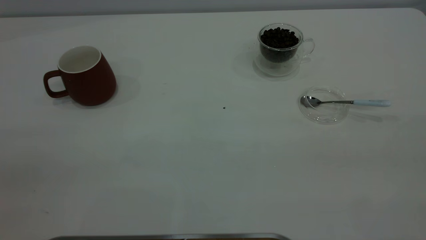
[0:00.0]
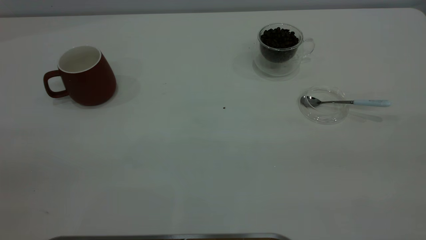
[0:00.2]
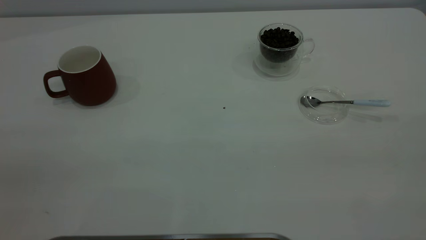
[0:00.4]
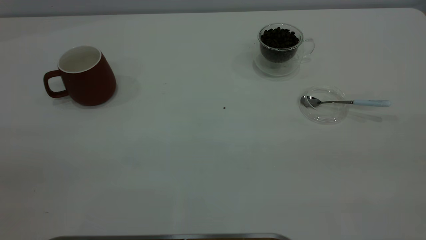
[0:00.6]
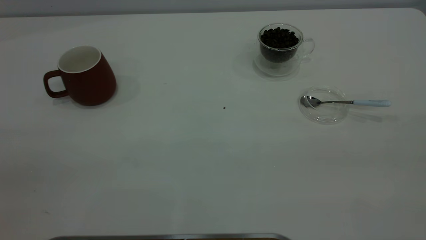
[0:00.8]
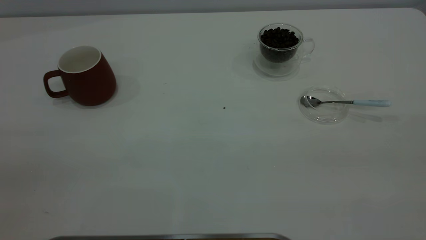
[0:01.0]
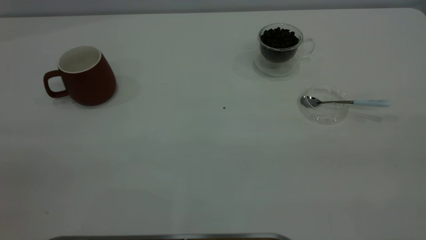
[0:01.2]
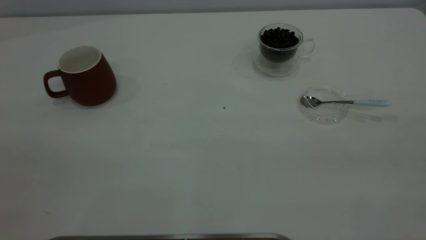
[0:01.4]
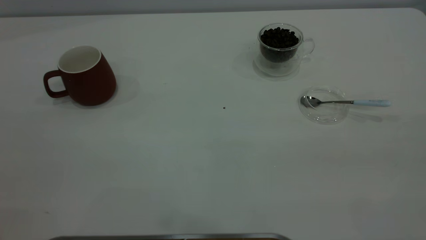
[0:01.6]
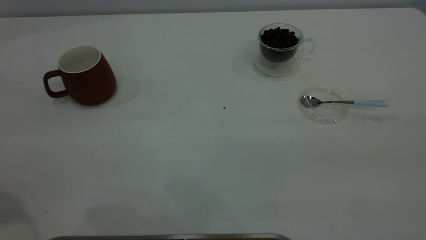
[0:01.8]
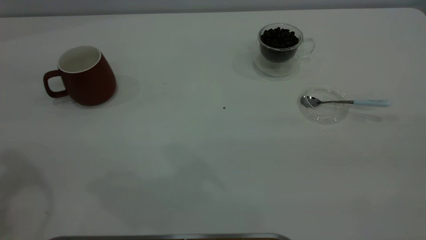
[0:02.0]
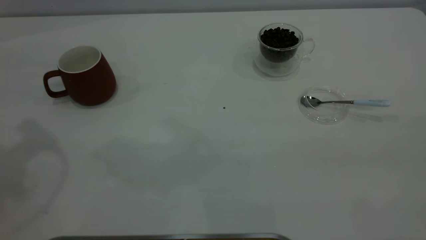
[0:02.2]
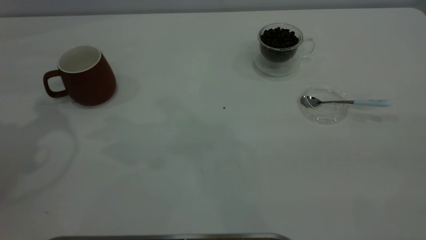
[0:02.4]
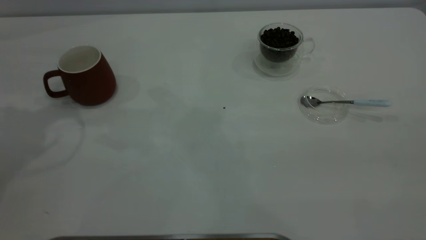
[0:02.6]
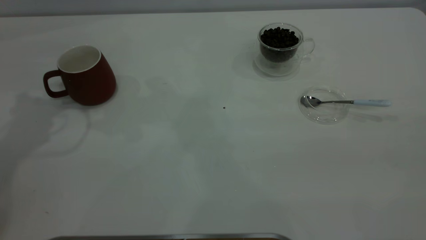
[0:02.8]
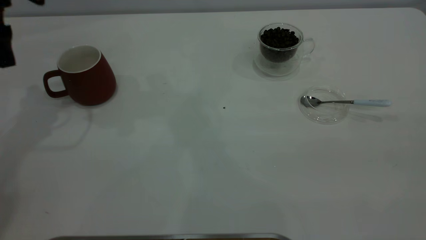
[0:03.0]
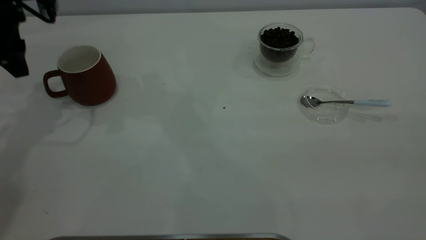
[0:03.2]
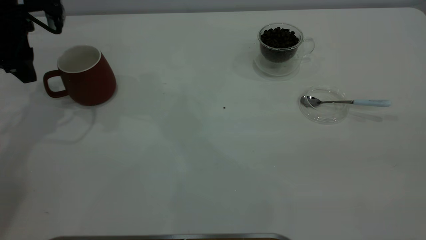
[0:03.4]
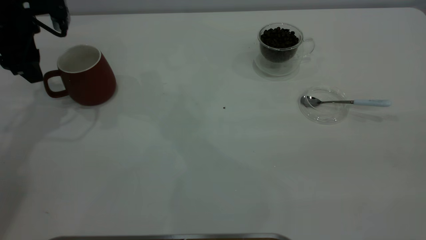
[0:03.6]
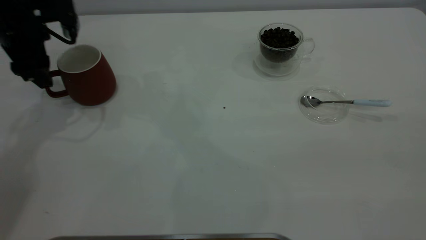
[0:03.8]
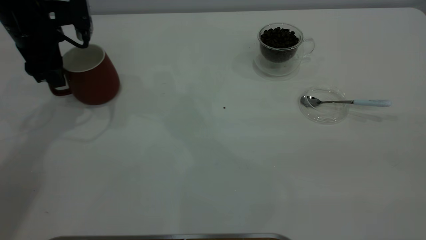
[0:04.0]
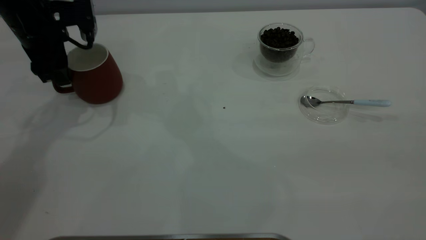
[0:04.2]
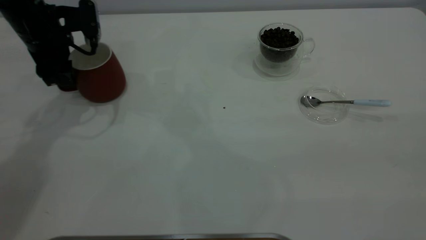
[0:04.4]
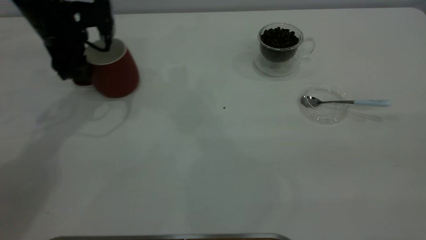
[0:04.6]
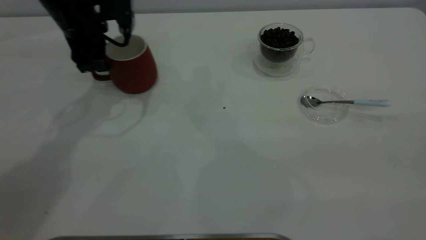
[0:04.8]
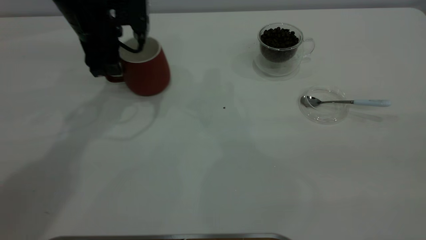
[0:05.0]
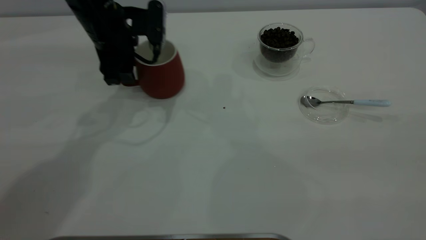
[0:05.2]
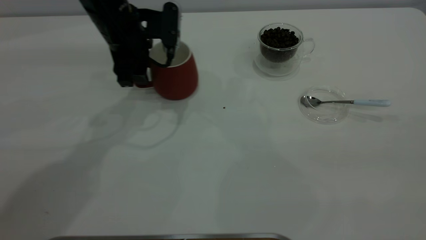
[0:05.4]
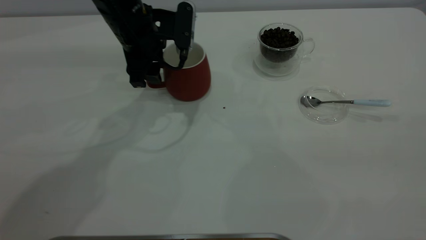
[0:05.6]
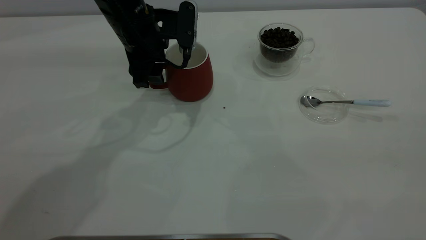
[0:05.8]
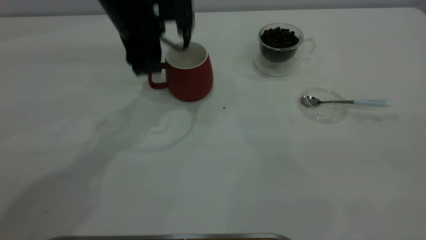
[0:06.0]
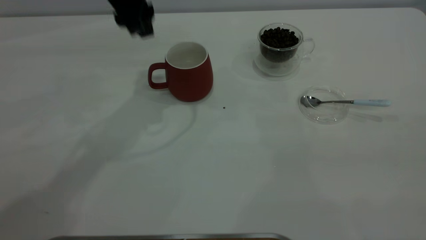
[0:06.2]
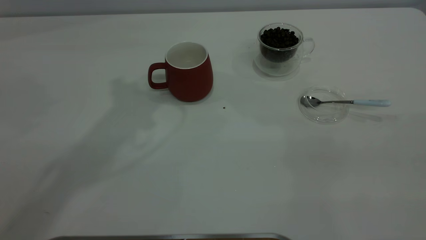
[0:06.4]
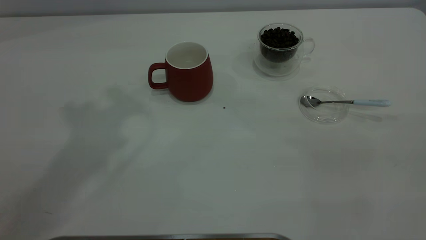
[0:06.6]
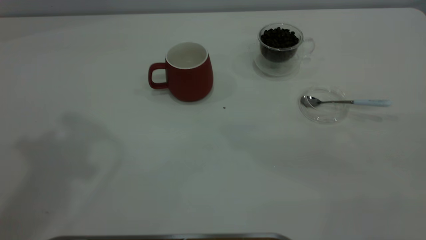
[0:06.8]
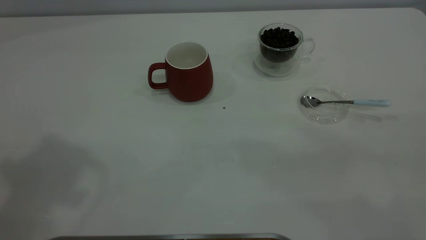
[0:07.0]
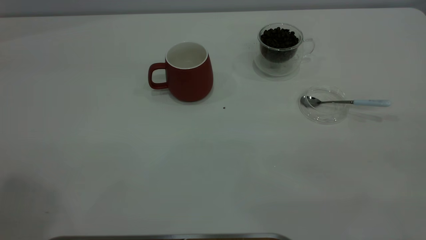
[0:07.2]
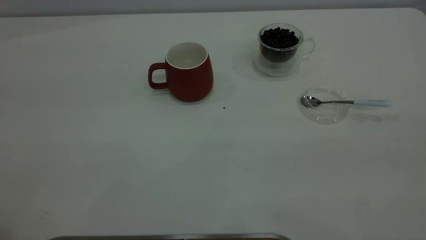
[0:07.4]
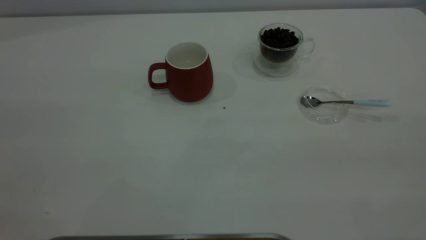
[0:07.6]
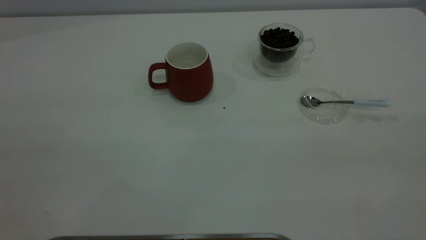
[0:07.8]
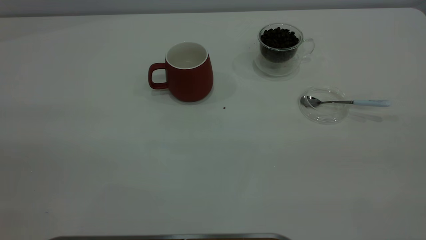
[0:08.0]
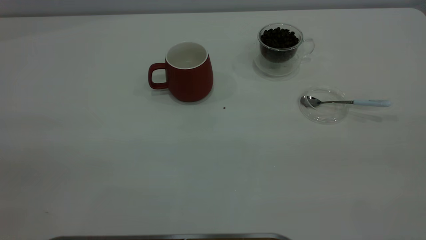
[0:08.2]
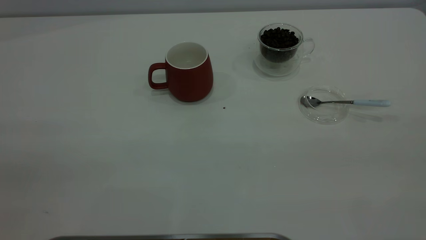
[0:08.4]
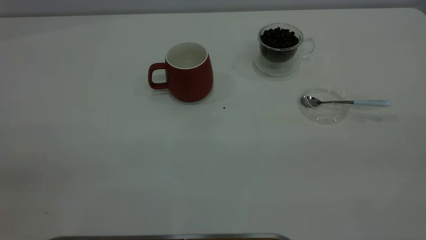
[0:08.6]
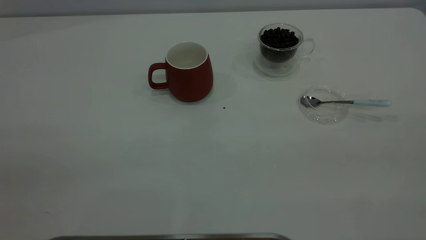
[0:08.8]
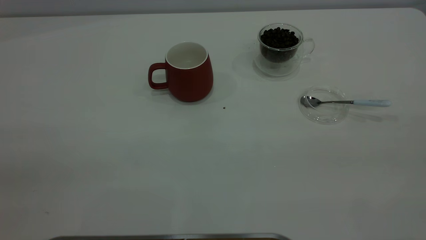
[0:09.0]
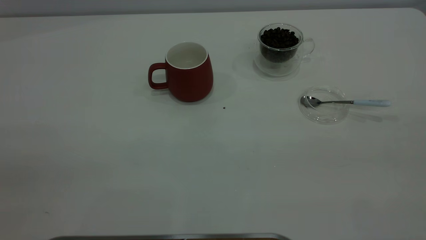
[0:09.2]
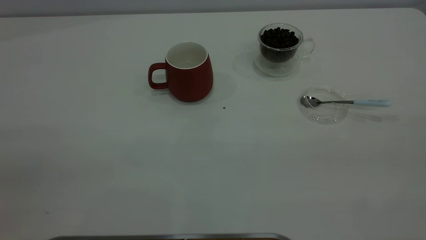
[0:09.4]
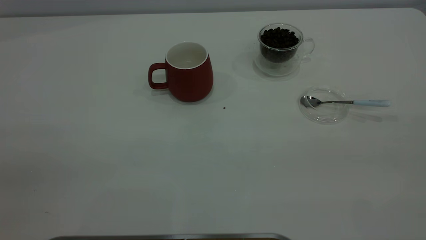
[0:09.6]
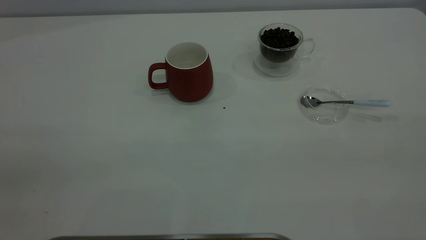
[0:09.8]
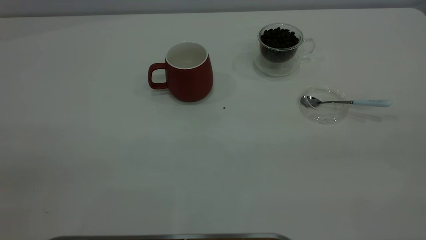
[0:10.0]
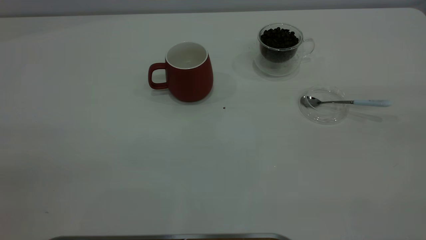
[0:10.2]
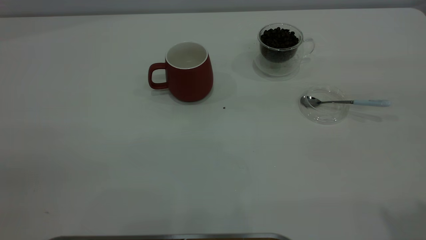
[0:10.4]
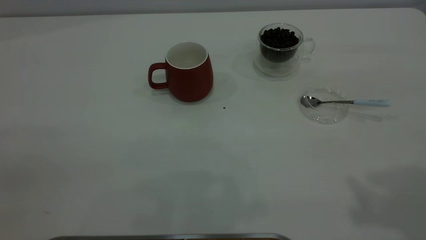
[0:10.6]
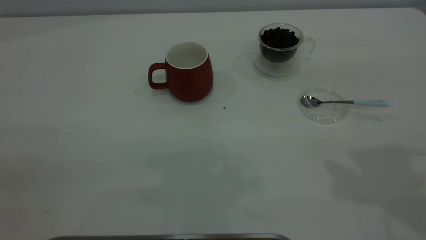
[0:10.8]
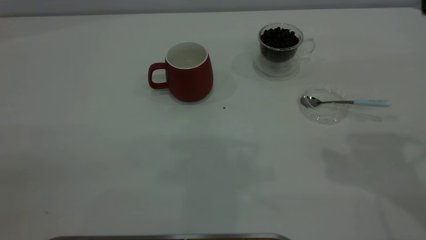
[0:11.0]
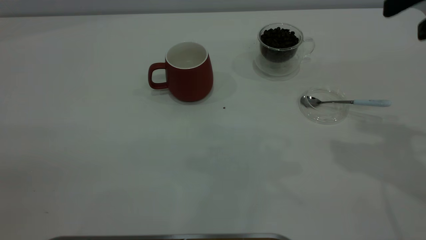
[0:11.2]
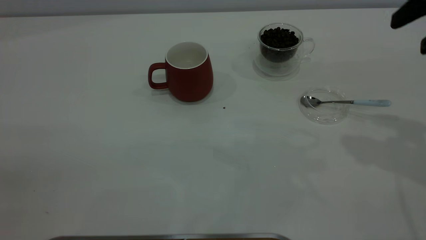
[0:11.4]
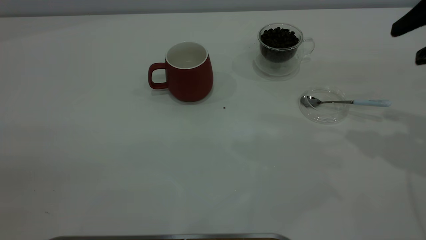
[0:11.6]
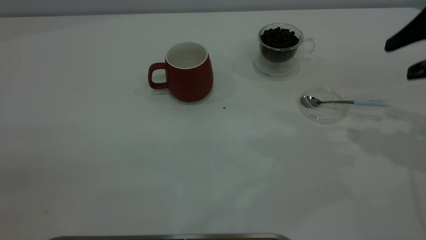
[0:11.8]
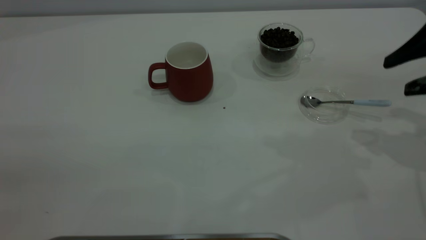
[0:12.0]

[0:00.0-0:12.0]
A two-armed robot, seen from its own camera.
Task of the whole recording: the left gripper place the red cup in the center of the table, the right gripper take the blue spoon from the cup lid and scoop out the coffee beans from the coffee cup and put them into the red cup, the right gripper put the spoon back into the cup lid.
Step, 0:00.0 to 0:06.0: Move the cup to the center of view.
0:01.6 to 0:03.0: The left gripper goes roughly 35 cm forward and downward.
0:03.0 to 0:04.4: The left gripper goes roughly 10 cm downward.
0:04.4 to 0:06.0: The left gripper is displaced to the right by roughly 15 cm.
0:06.0 to 0:07.6: The left gripper travels backward, upward and to the left by roughly 50 cm.
0:10.4 to 0:12.0: The right gripper is displaced downward and forward by some 25 cm.

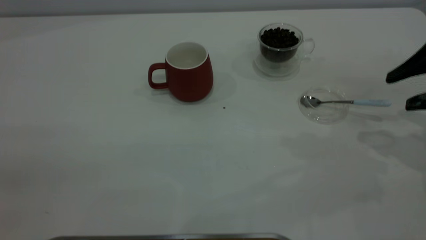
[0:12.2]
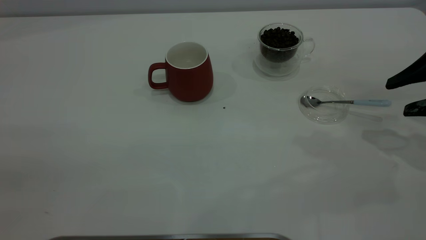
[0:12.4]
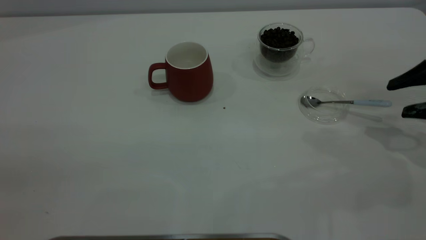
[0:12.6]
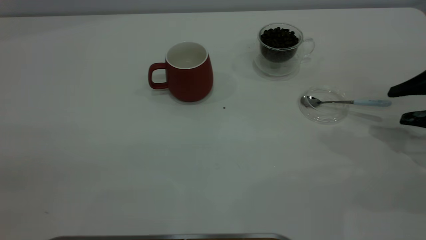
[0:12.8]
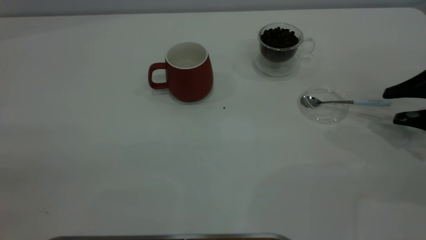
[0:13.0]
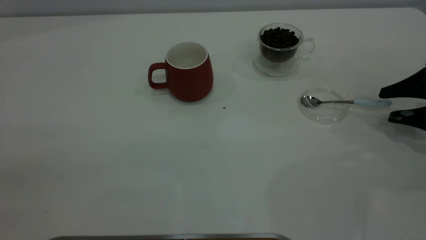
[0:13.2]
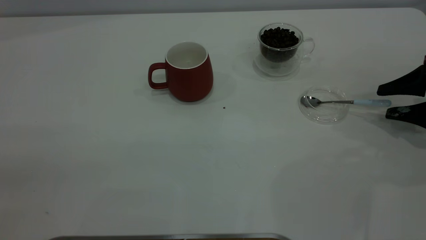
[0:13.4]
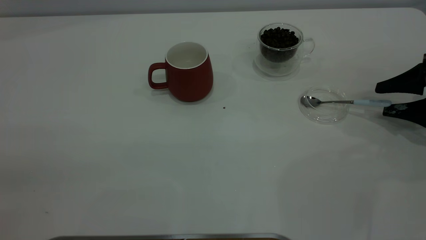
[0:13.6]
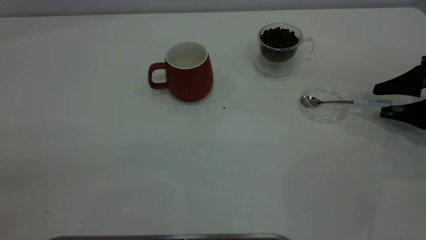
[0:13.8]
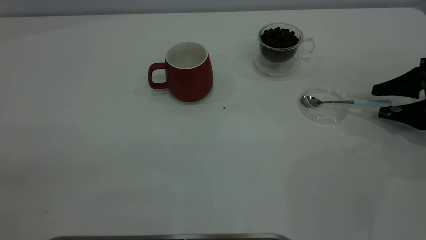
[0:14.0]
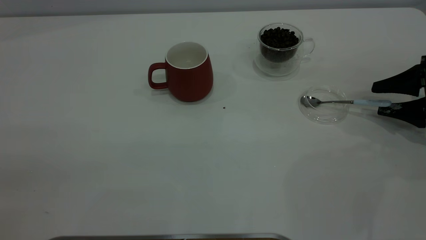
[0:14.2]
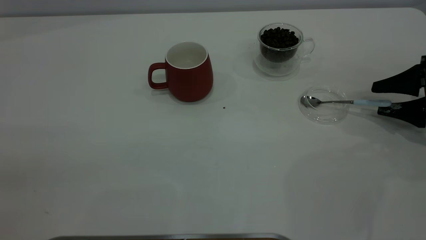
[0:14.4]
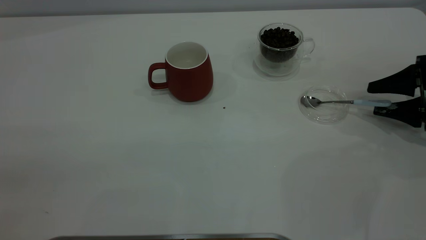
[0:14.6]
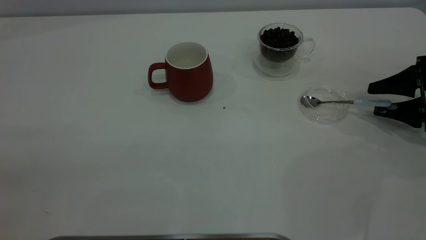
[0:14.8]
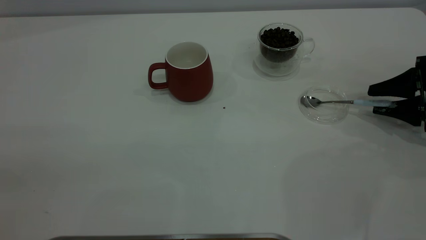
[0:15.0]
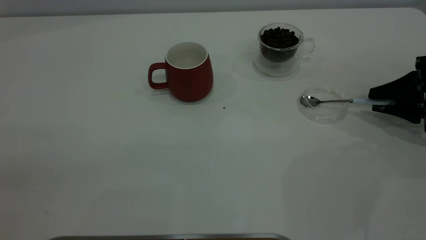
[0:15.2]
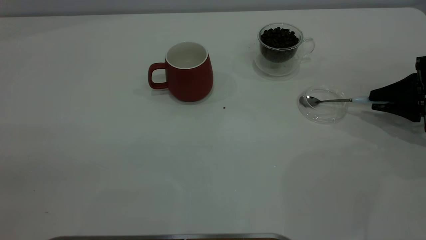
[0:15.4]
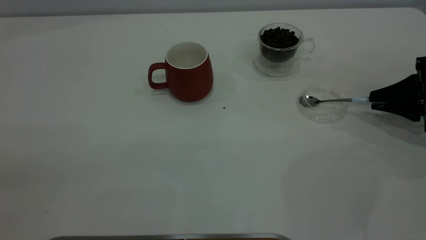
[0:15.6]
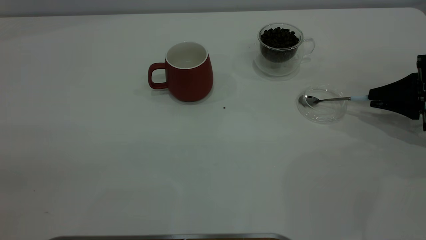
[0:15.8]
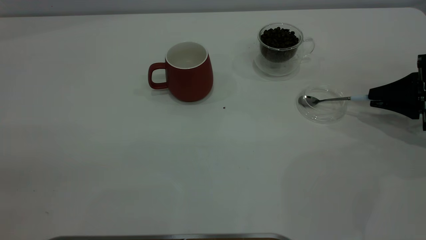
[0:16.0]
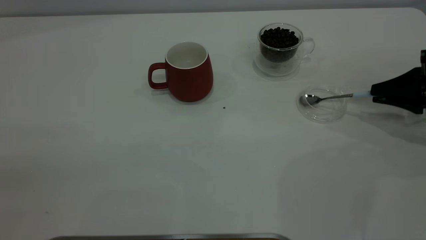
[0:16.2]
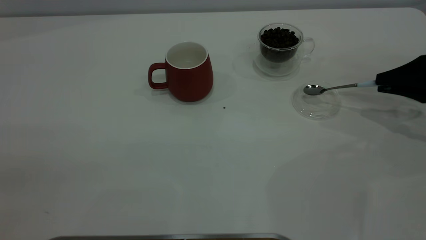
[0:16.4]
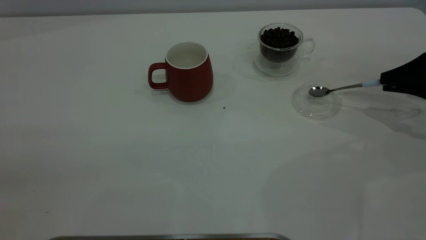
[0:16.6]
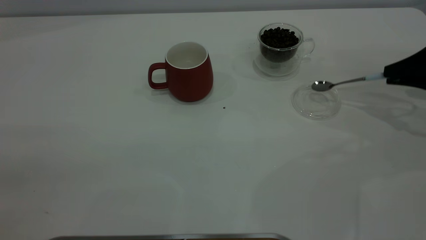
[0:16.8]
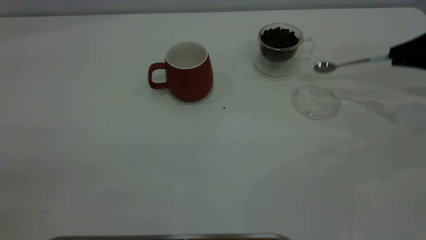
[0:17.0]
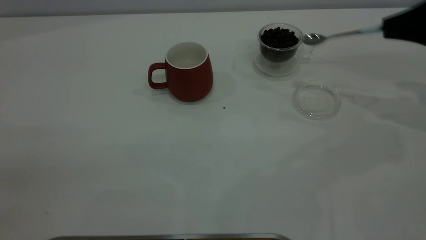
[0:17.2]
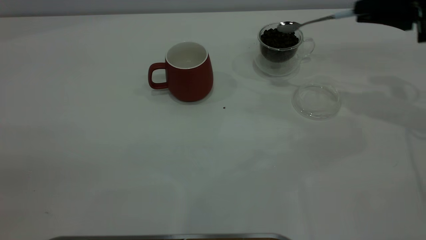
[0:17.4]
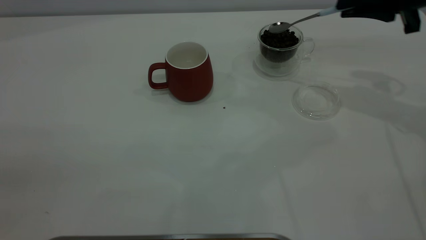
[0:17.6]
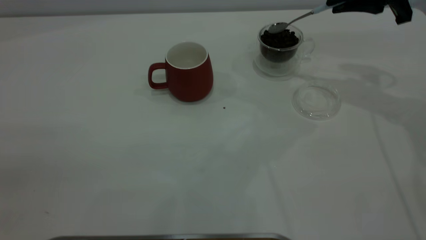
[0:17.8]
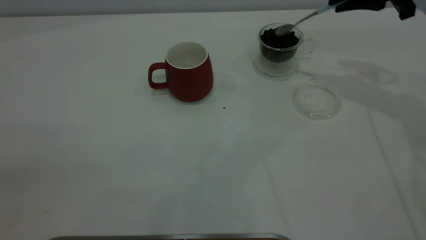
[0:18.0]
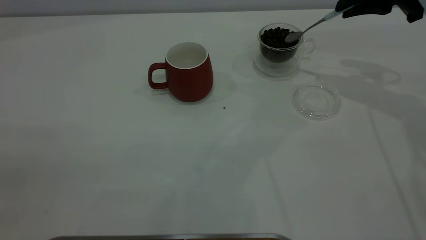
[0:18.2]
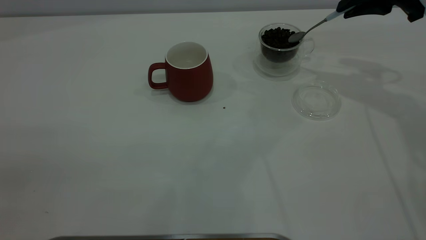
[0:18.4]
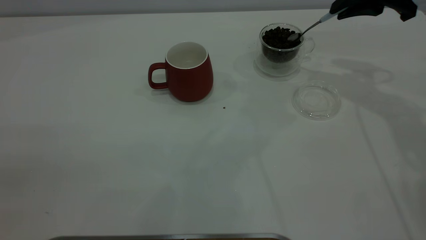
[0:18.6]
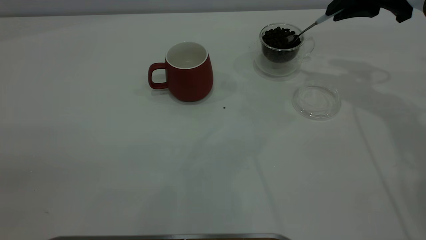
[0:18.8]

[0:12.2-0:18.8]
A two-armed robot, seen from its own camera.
Task of the whole recording: the left gripper place the red cup in the center of the table, the right gripper take the blue spoon from the cup lid and scoop out the coffee beans from the coffee cup and put them into the red cup, the right gripper put the spoon back into the cup lid.
Step, 0:12.2 to 0:16.6: Pick up the spoon.
0:12.2 to 0:13.8: The right gripper goes about 10 cm downward.
0:13.8 to 0:15.4: The right gripper closes up.
0:15.4 to 0:17.2: The right gripper shifts roughly 10 cm upward.
0:17.2 to 0:18.8: The right gripper moves to the left and forward, about 10 cm.
